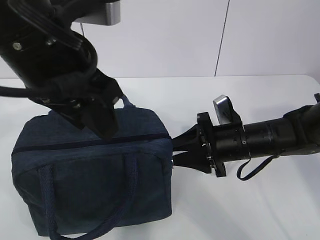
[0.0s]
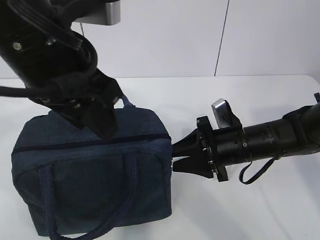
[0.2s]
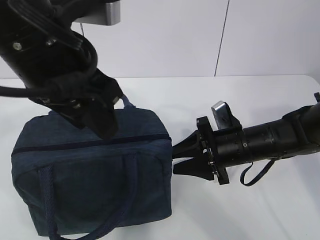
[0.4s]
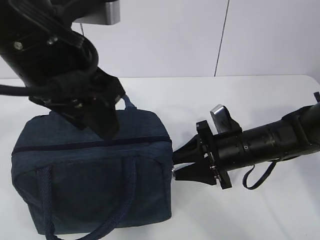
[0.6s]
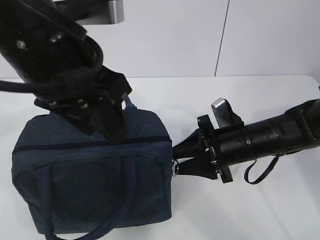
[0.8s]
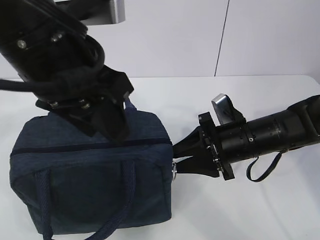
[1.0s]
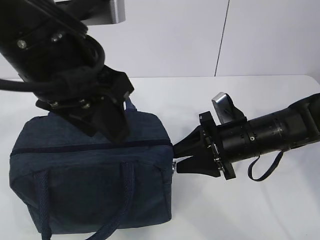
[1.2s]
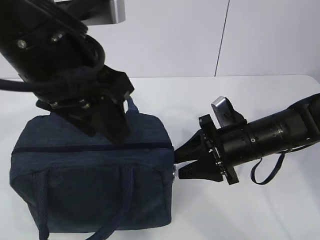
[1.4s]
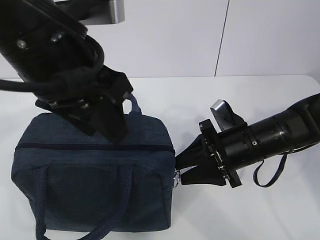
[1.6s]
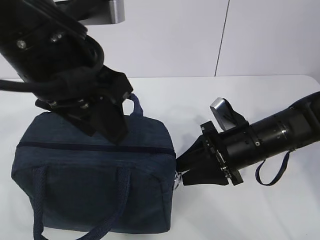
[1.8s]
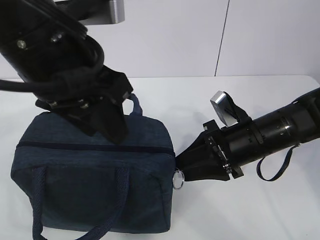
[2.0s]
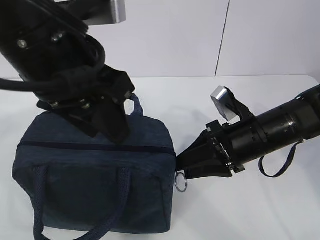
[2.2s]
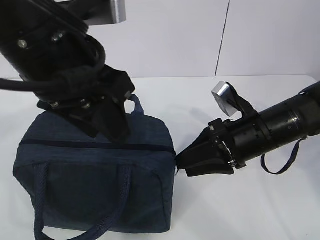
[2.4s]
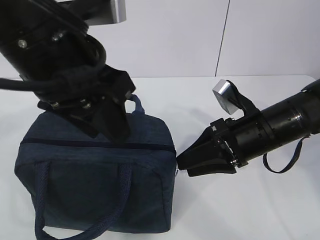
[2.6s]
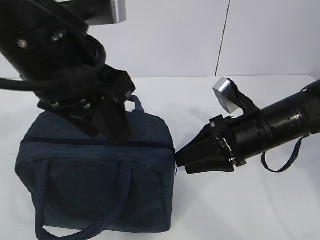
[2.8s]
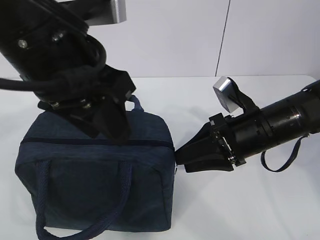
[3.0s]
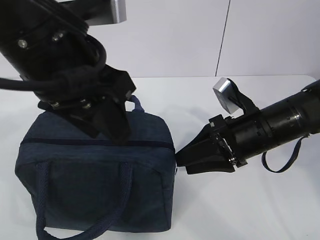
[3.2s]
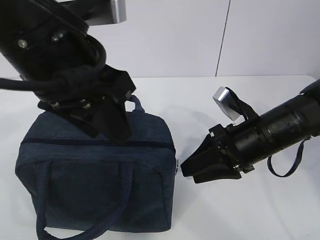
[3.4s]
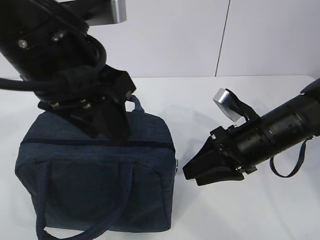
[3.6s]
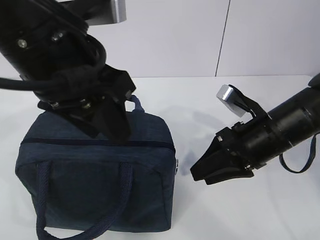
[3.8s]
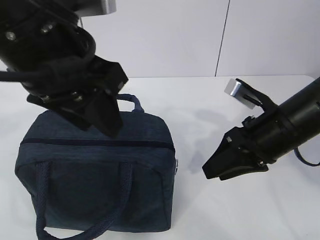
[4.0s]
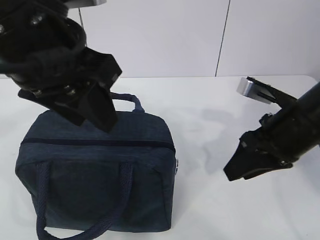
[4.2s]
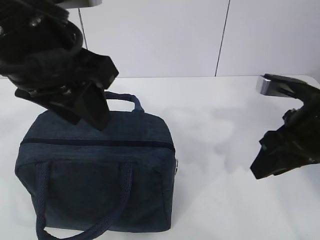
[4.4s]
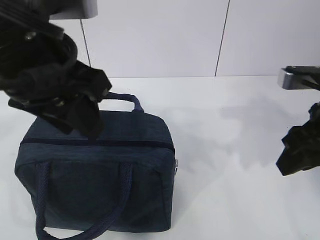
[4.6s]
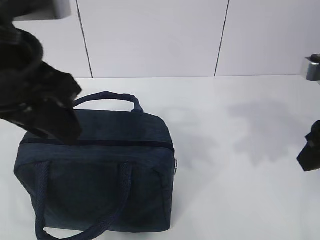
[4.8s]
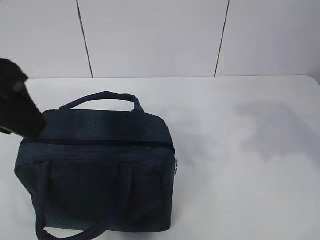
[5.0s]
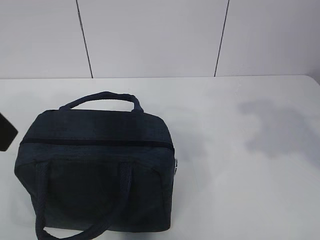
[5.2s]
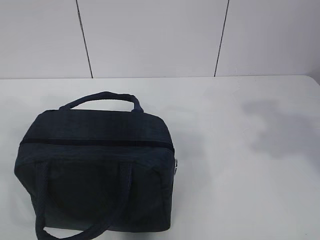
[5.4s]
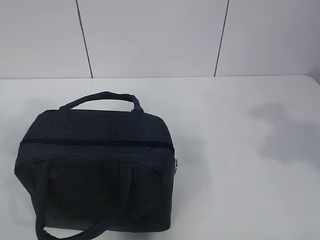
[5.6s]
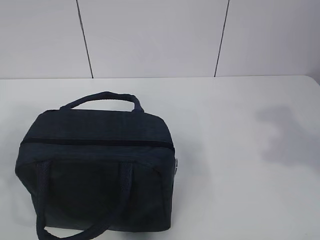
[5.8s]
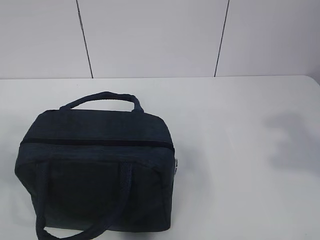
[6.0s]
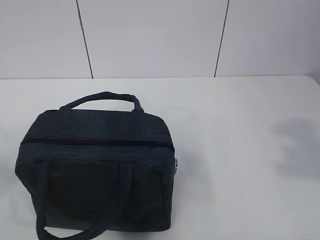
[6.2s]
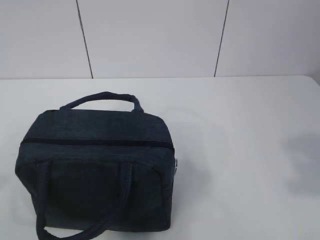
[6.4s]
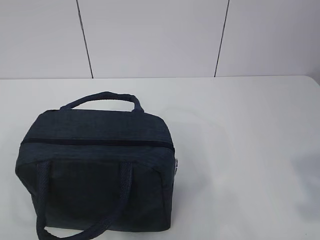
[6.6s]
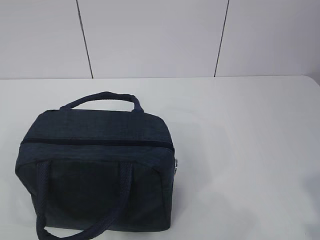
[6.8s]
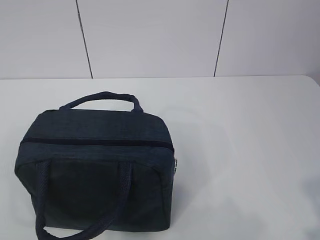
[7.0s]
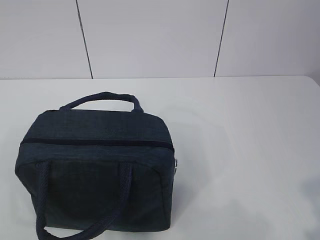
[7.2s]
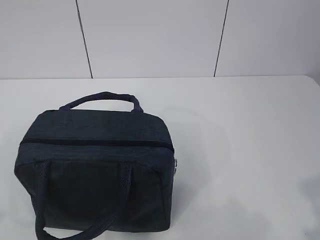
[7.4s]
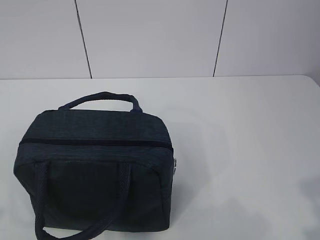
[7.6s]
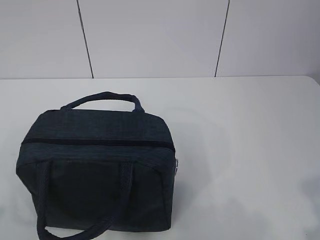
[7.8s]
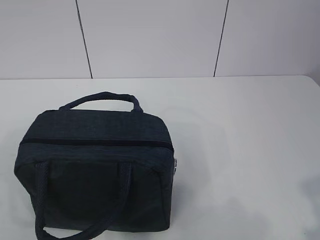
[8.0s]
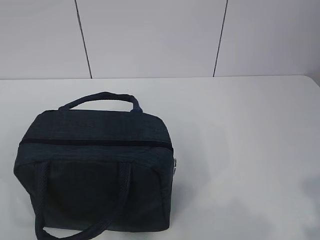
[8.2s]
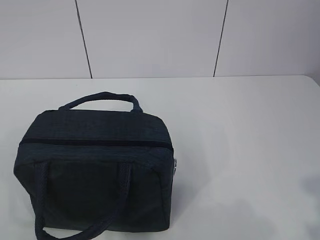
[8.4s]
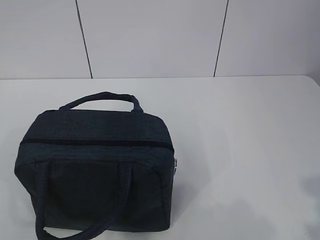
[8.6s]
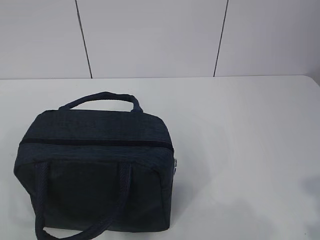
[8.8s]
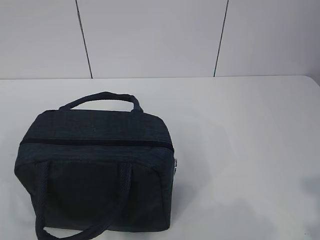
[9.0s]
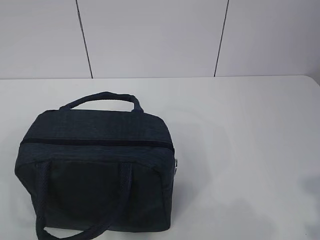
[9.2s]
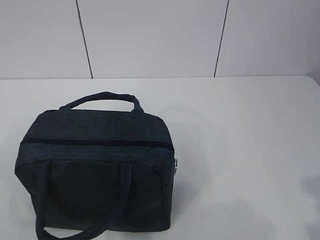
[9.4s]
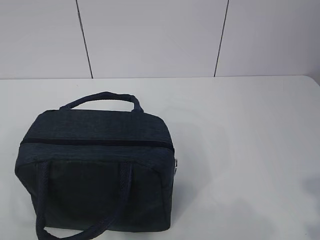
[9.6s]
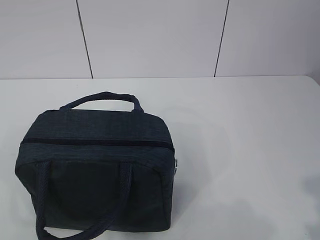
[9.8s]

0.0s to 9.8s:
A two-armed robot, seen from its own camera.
0.0s to 1.4s: The grippers make only small movements.
2.8s to 4.2s: The right gripper moves roughly 5 cm.
4.2s to 5.6s: The right gripper moves backward, upward and to the right, roughly 20 cm. The left gripper shifts some 15 cm to the left and backward.
5.6s to 7.0s: The left gripper moves backward, to the left and downward, roughly 20 cm; the right gripper is displaced backward and downward by about 15 cm.
7.0s to 8.4s: The left gripper shifts by roughly 5 cm.
8.4s to 9.8s: There are only small adjustments of the grippers.

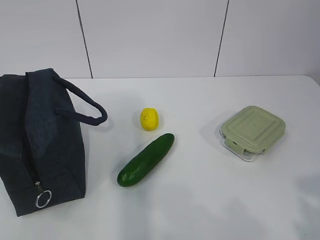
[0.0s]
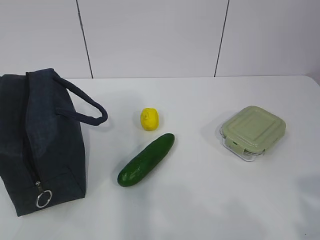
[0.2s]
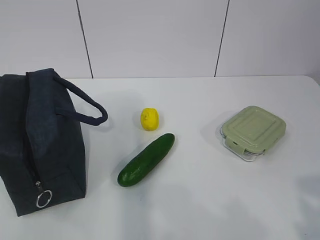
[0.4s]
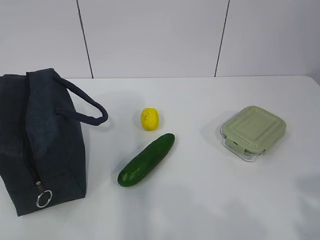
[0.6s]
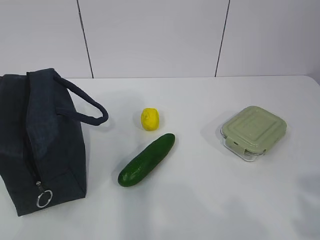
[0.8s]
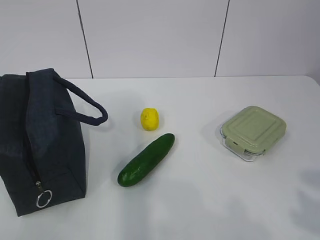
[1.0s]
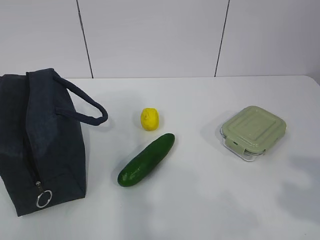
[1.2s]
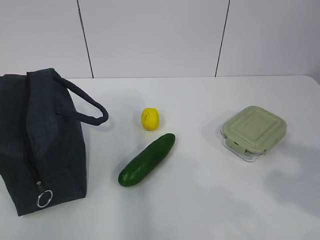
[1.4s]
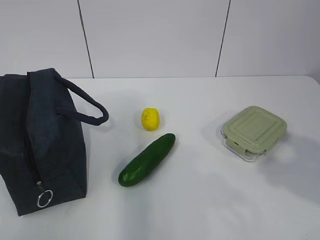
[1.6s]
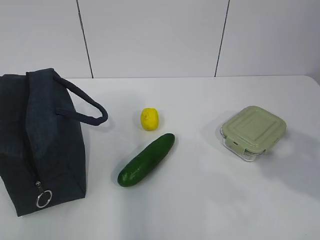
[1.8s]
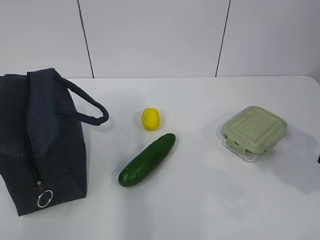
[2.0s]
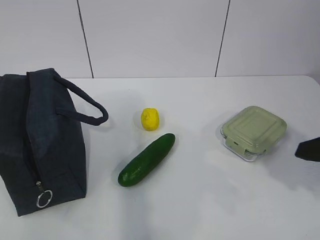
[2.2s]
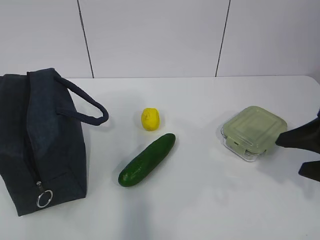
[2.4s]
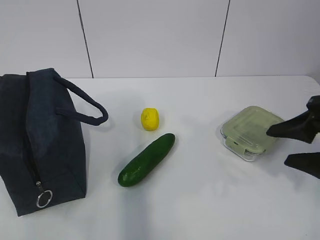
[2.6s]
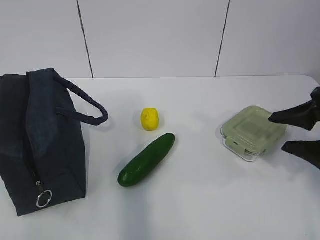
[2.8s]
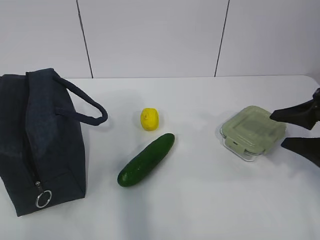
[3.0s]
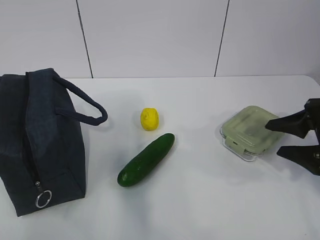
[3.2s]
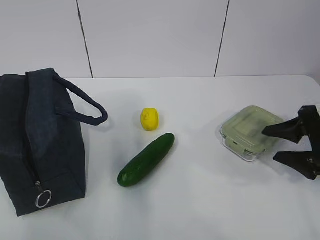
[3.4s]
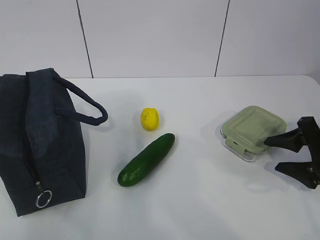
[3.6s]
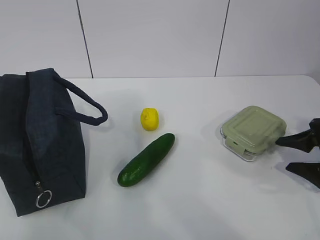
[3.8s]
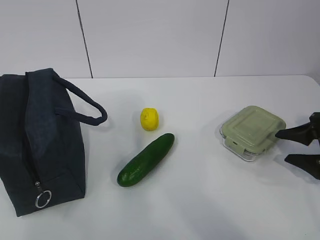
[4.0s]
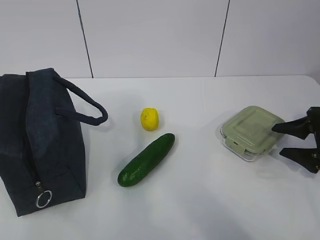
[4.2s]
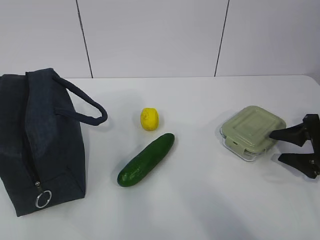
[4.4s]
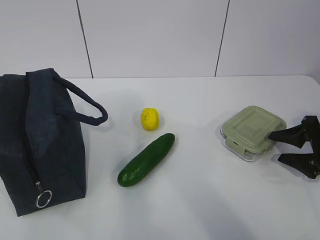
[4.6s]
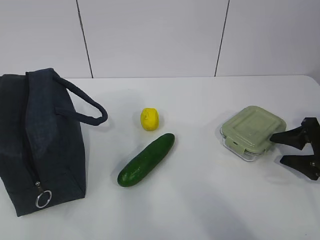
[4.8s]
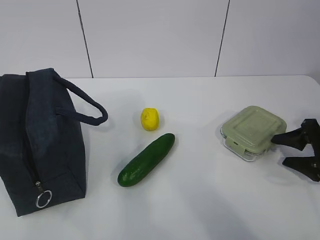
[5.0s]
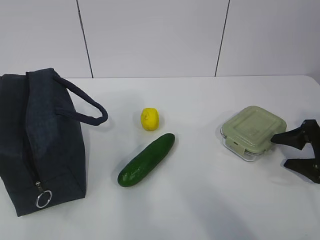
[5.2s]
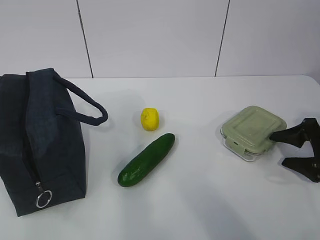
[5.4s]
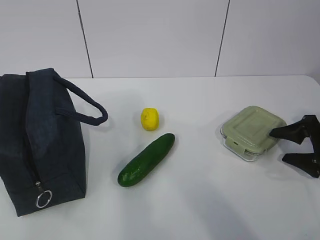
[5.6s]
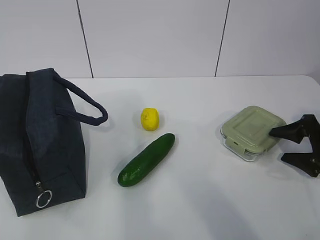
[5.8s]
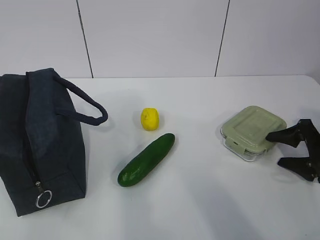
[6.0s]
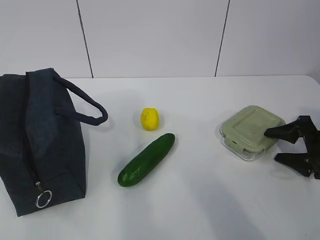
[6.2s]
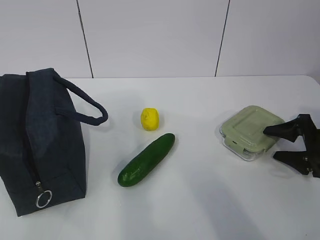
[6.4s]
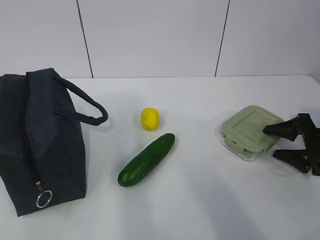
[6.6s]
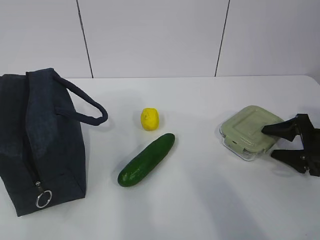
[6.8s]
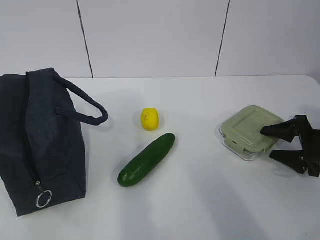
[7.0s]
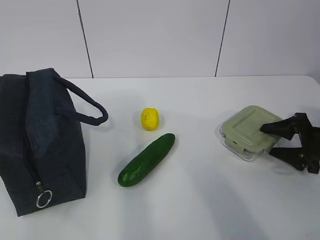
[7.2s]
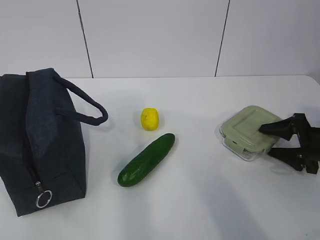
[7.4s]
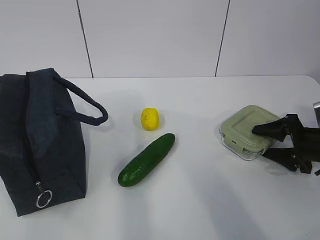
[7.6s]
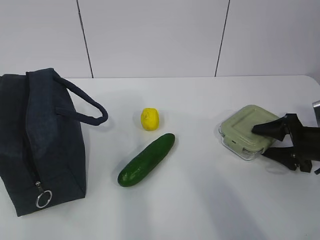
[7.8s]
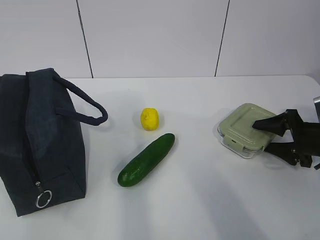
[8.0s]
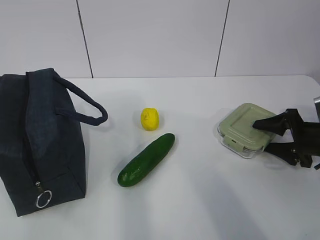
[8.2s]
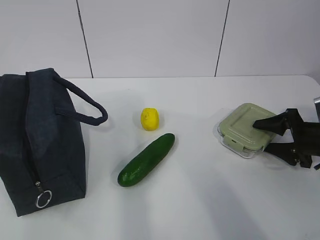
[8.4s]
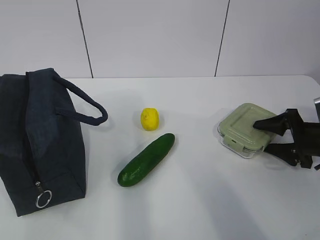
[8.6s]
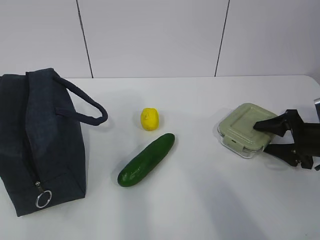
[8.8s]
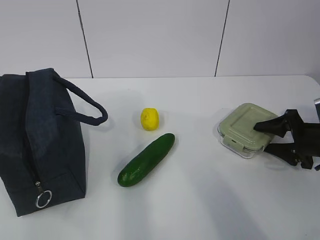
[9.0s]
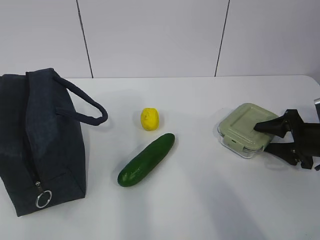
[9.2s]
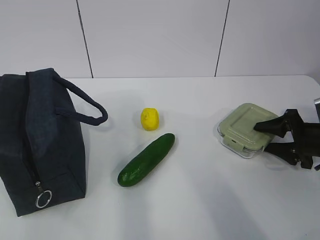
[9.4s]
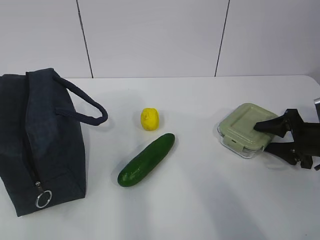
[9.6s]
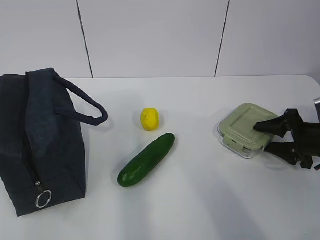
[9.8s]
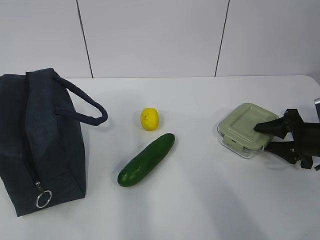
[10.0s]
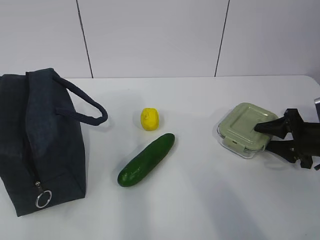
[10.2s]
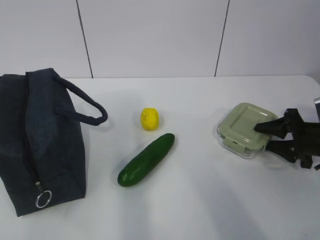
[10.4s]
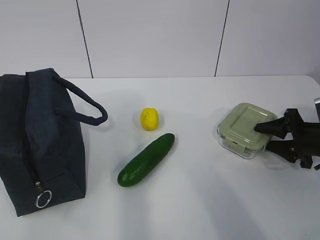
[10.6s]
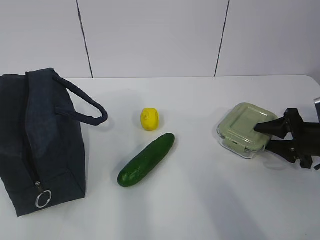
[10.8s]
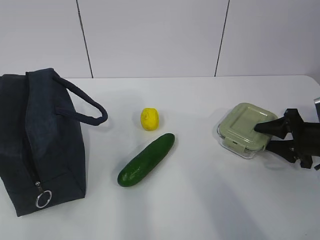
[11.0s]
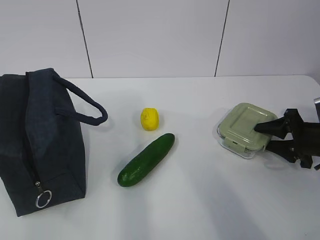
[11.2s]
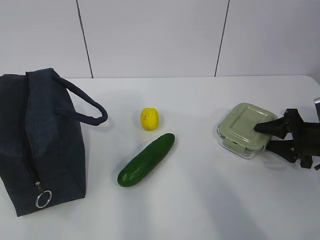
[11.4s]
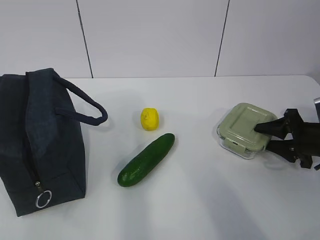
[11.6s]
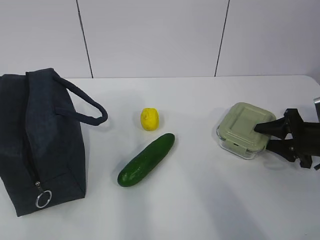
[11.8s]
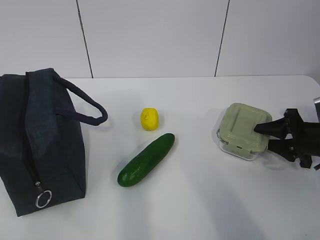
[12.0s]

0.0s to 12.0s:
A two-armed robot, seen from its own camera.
1.6s to 3.0s: The right gripper is displaced forward and downward by approximately 20 cm. The left gripper closes its fingers.
3.0s to 4.4s: The right gripper shifts about 10 cm downward and to the right.
4.4s to 7.6s: The grippers move only a little.
7.6s to 12.0s: Both grippers stay put.

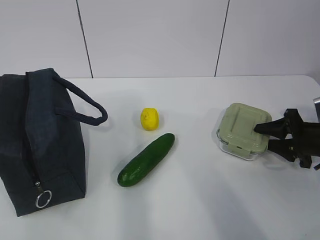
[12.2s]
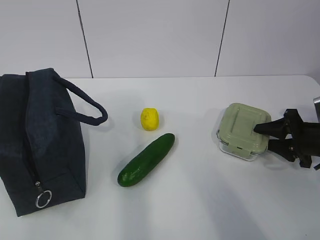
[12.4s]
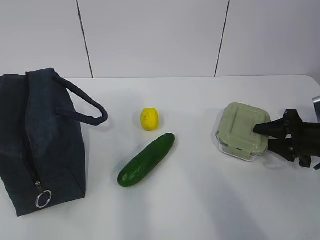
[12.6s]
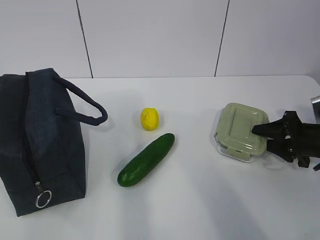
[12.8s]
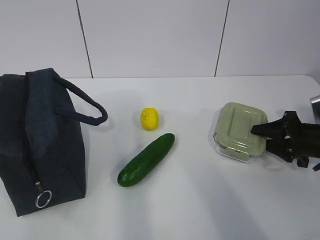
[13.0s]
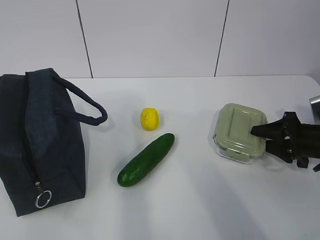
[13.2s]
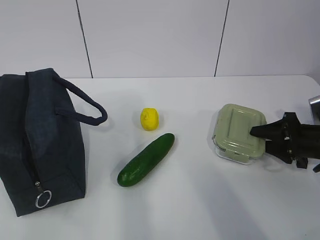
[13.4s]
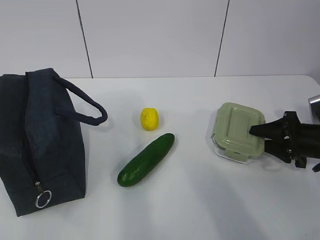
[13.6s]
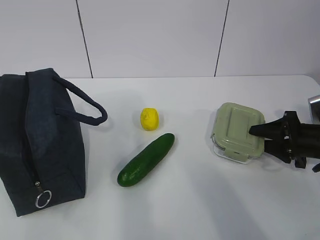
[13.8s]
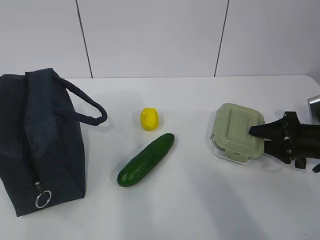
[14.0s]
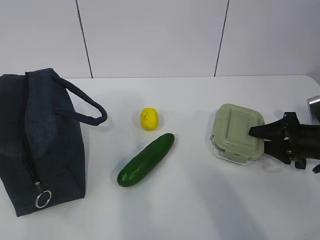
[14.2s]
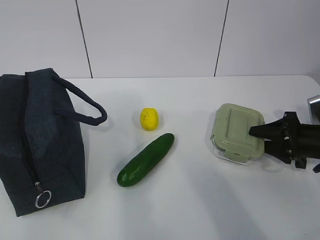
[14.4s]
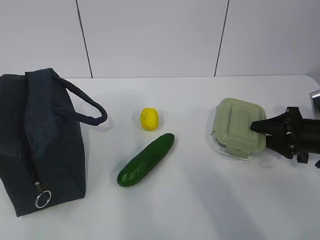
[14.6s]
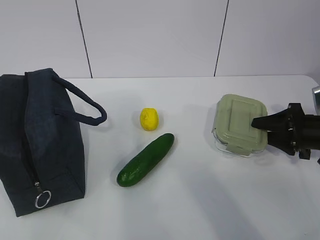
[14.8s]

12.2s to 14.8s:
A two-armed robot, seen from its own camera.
12.2s to 14.8s: There are only small adjustments of the grippers.
